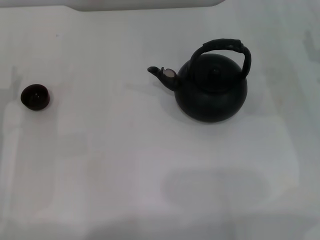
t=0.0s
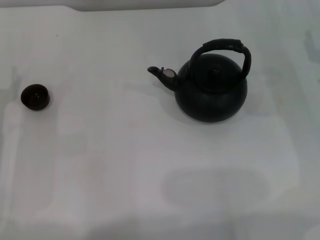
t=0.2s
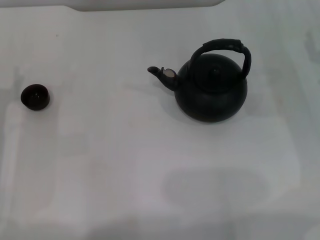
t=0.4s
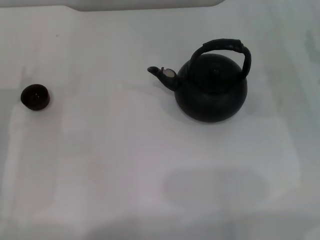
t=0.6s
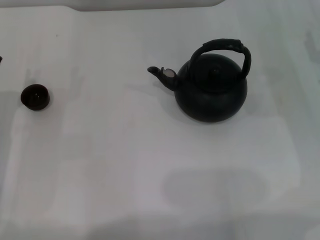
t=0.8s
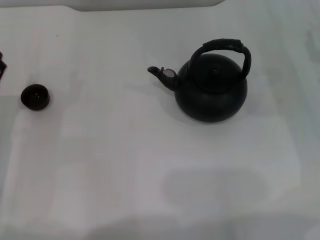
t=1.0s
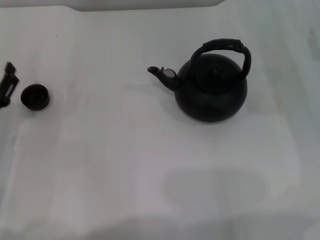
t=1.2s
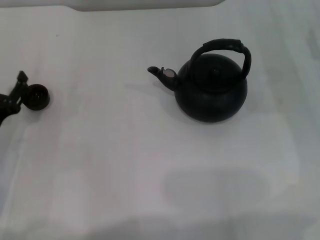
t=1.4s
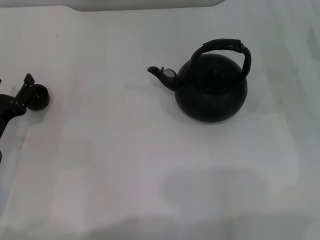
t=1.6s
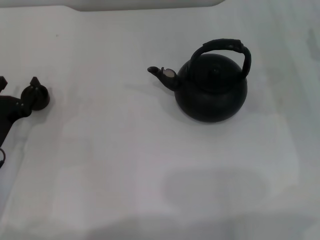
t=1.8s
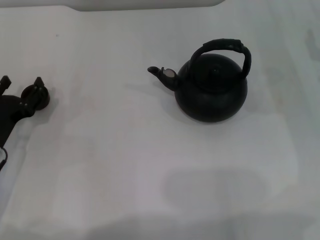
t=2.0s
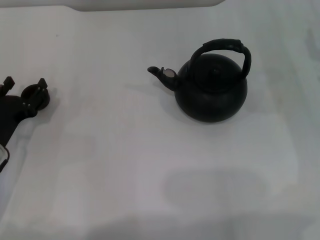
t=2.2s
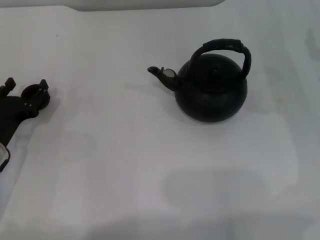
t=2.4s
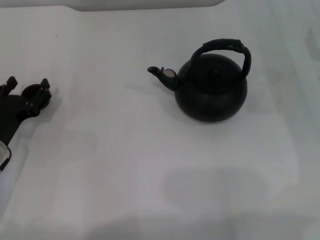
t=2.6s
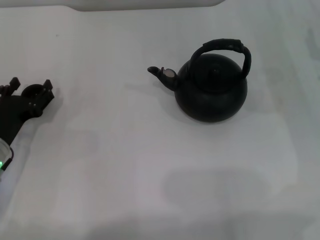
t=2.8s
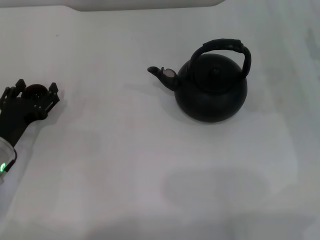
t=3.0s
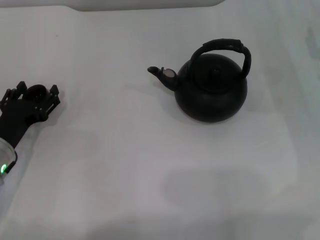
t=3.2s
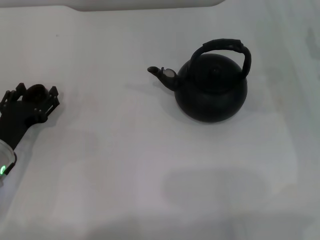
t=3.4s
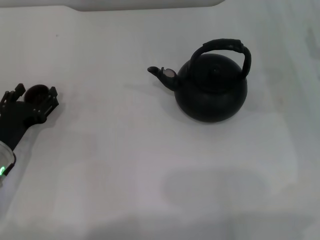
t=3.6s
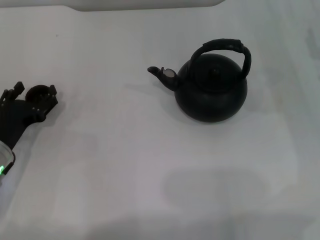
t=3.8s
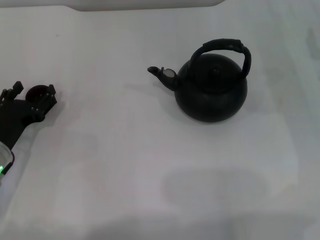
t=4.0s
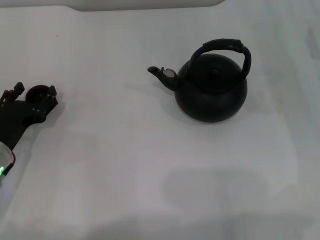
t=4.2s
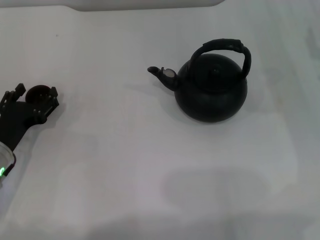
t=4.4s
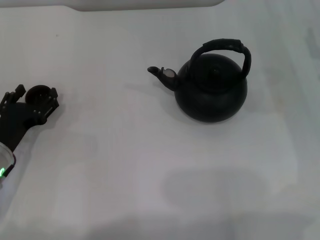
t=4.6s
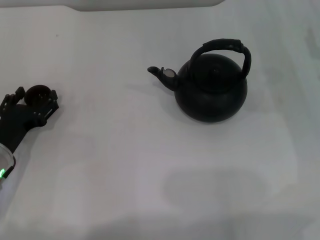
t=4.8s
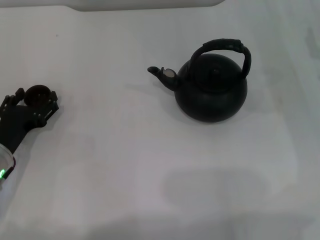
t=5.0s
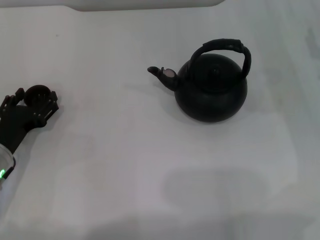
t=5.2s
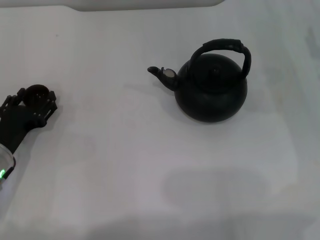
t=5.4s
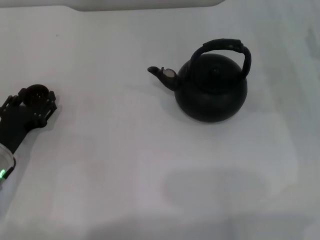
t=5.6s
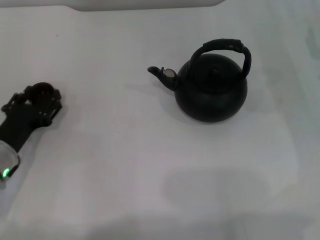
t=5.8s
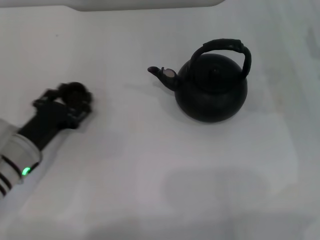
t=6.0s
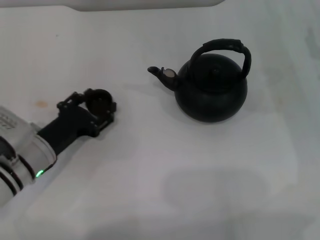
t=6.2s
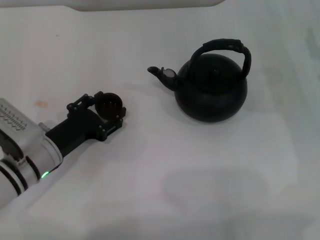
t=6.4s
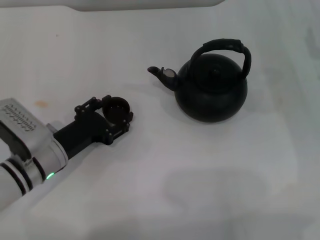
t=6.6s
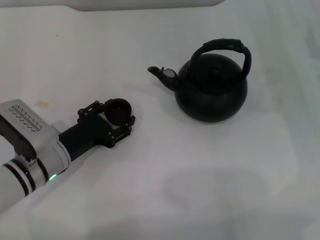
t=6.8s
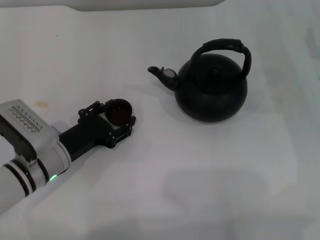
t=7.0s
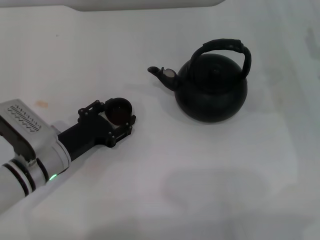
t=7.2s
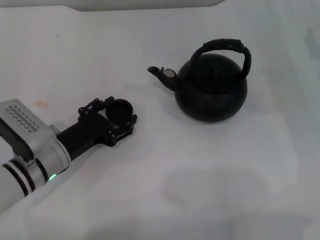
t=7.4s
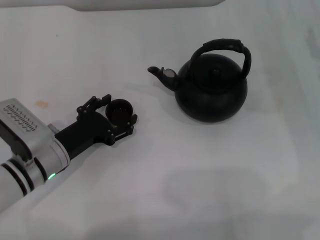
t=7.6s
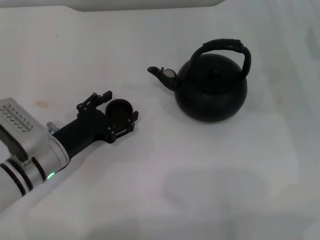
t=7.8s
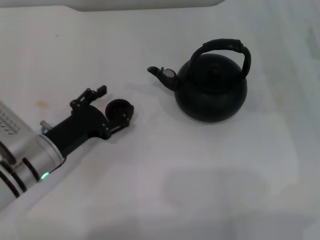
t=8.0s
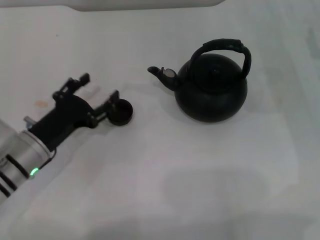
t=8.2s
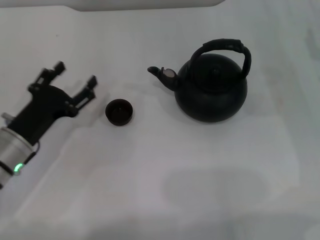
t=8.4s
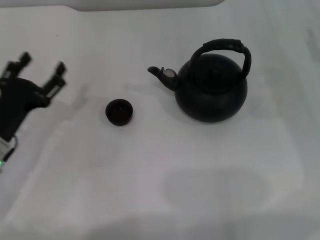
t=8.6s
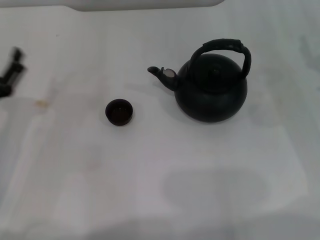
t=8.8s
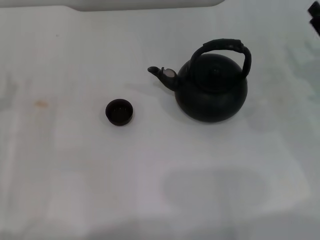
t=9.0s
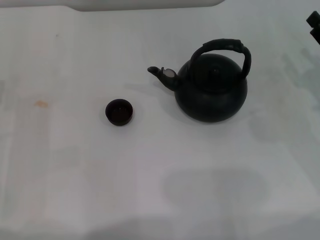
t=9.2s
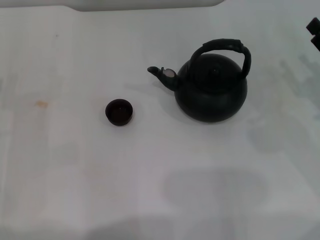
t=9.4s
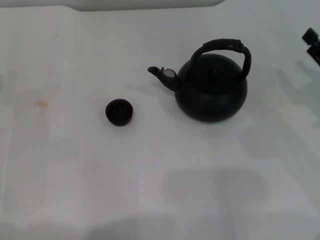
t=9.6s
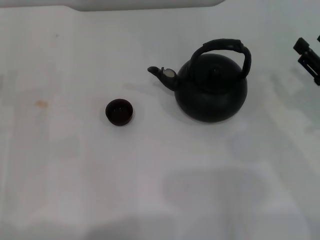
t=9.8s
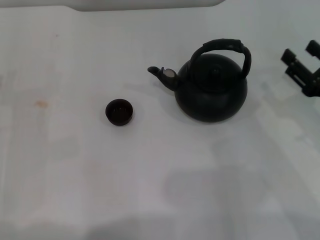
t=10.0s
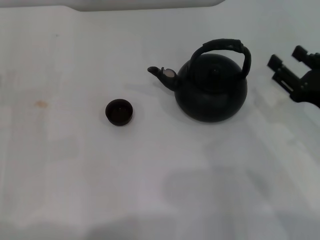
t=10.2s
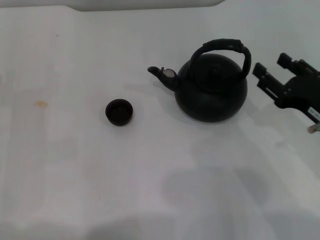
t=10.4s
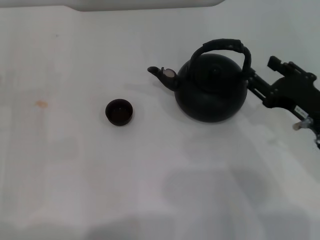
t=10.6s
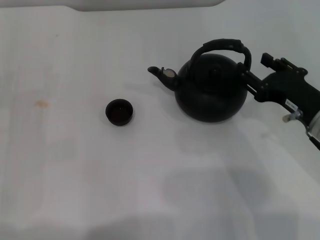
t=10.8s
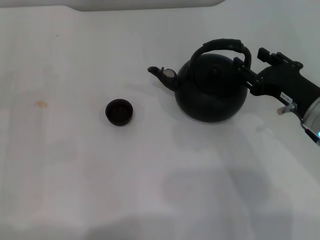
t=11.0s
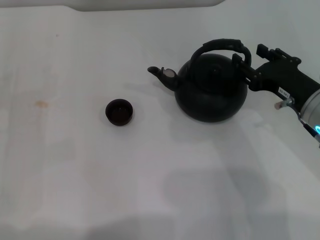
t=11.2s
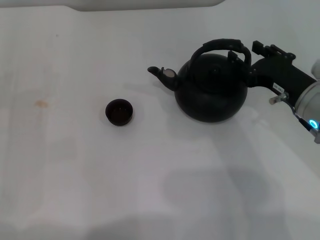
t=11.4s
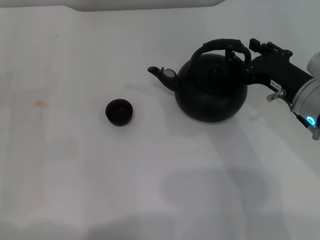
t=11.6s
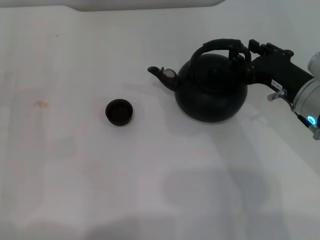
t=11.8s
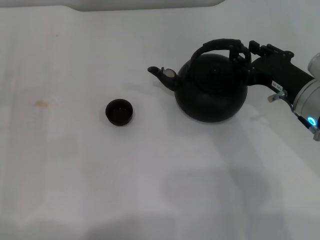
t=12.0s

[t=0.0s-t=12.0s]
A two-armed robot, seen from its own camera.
Task of the whole recording: Grasp the handle of the teapot with one hand and pour tea into the teacup.
Step, t=0.0s to t=5.6s: Pick up the teacup with the left gripper.
Step, t=6.0s to t=8.2s: Place the teacup in the center of view with the left gripper.
t=0.0s to t=1.6s: The grippers make only small movements.
t=1.6s to t=3.0s: There are only small adjustments of the grippers.
t=3.0s to t=4.4s: Both grippers stay about where they are.
t=4.4s to t=6.0s: The left gripper closes its fingers.
t=6.0s to t=7.6s: There are only small adjustments of the grippers.
t=7.6s to t=9.0s: The left gripper shifts some 10 cm to the left, and opens its fingers.
t=9.0s to t=10.4s: The right gripper is displaced backward and to the left by about 10 cm.
t=10.4s to t=12.0s: The right gripper travels forward by about 5 cm.

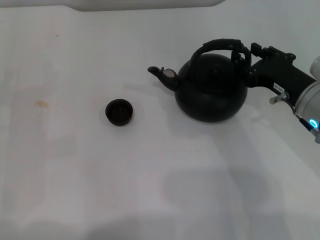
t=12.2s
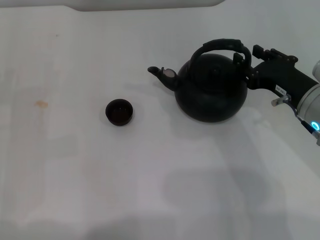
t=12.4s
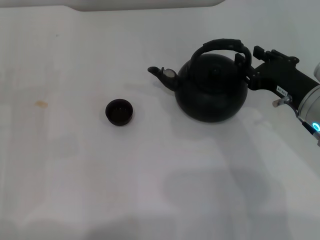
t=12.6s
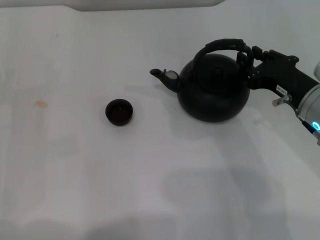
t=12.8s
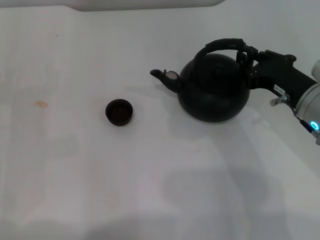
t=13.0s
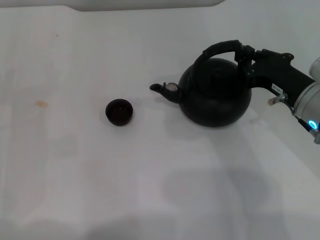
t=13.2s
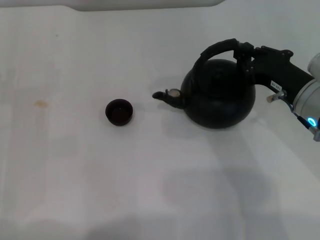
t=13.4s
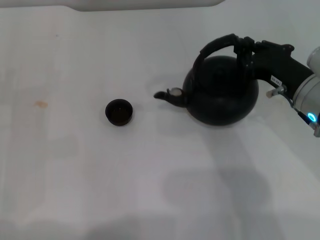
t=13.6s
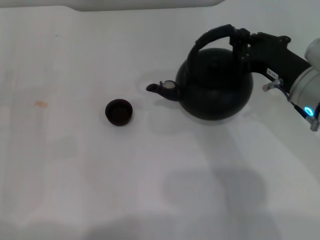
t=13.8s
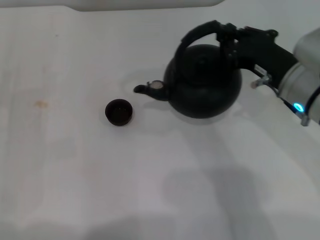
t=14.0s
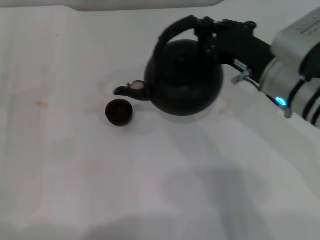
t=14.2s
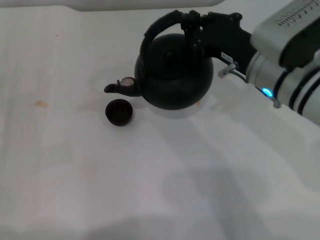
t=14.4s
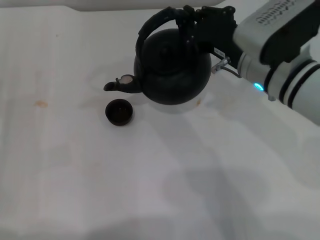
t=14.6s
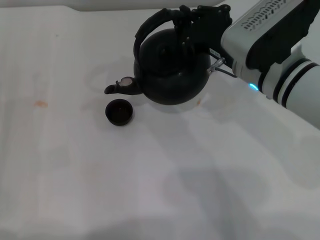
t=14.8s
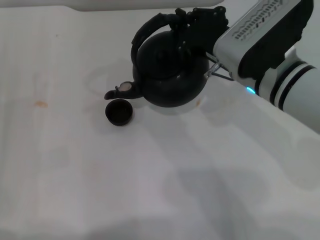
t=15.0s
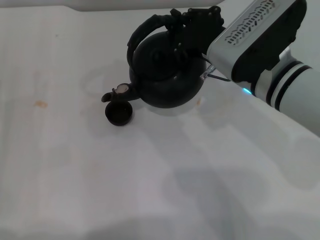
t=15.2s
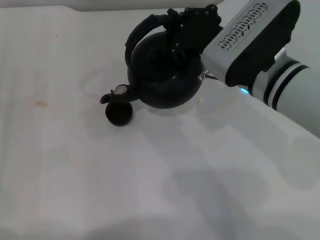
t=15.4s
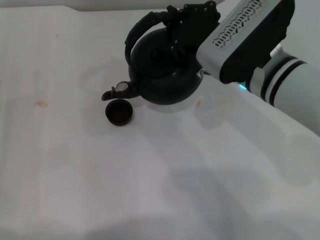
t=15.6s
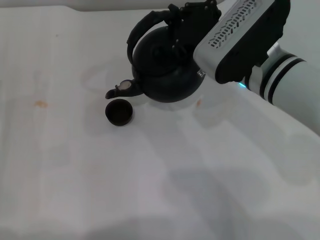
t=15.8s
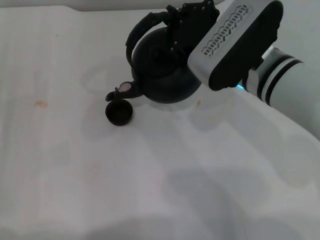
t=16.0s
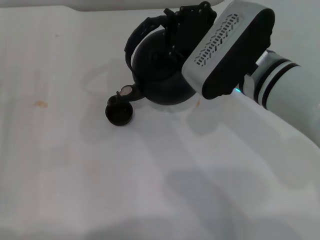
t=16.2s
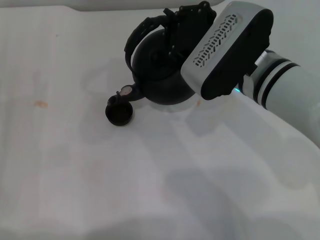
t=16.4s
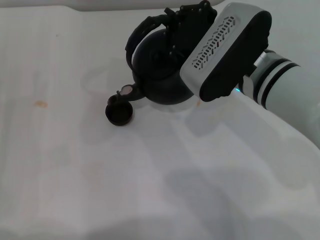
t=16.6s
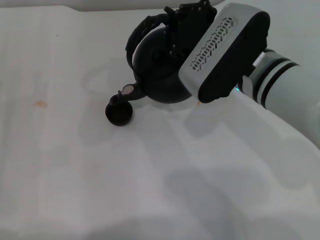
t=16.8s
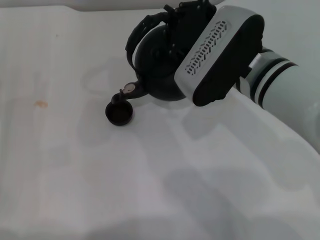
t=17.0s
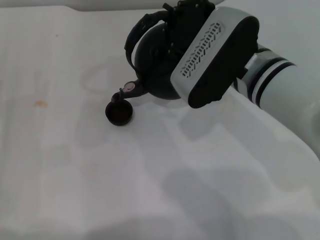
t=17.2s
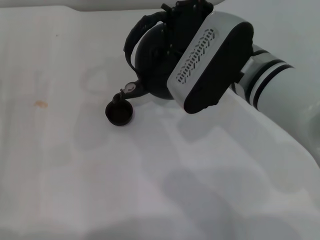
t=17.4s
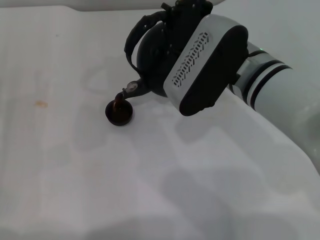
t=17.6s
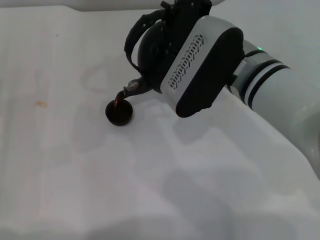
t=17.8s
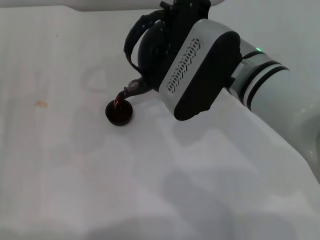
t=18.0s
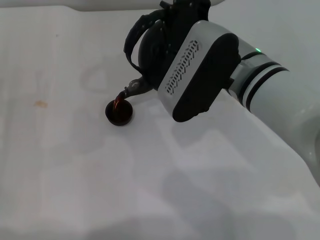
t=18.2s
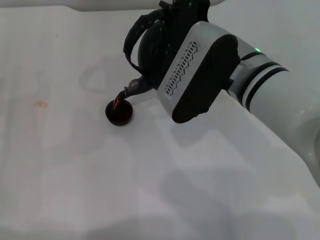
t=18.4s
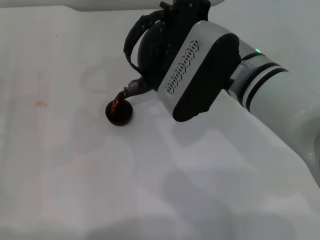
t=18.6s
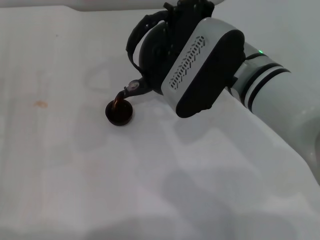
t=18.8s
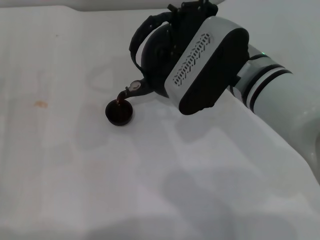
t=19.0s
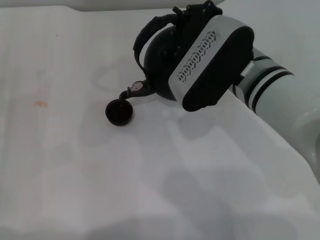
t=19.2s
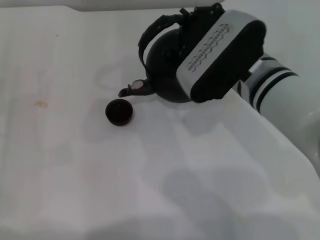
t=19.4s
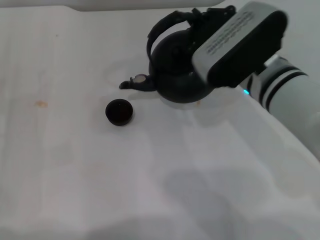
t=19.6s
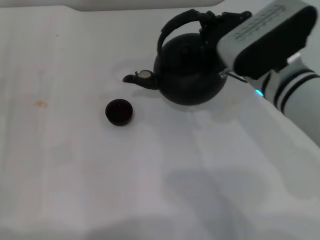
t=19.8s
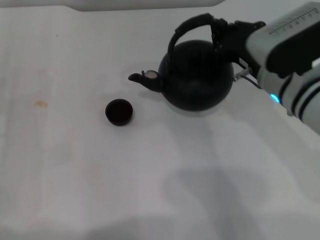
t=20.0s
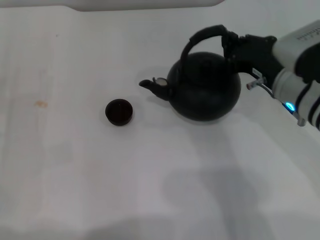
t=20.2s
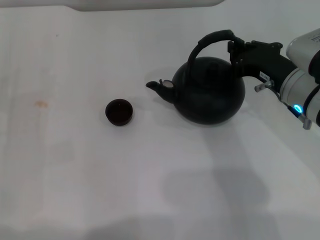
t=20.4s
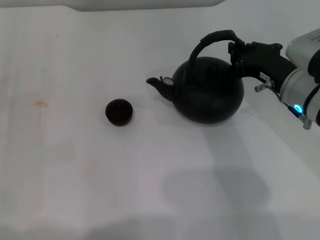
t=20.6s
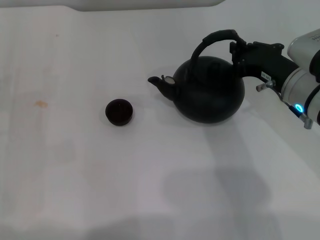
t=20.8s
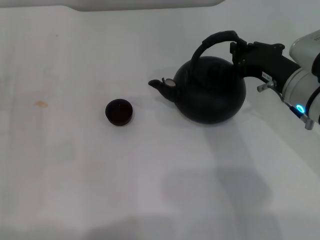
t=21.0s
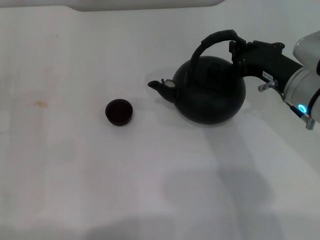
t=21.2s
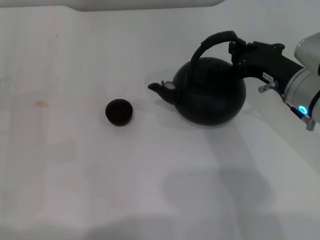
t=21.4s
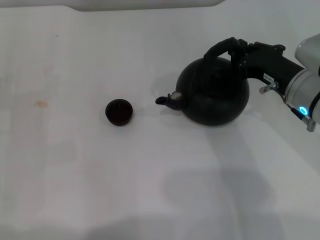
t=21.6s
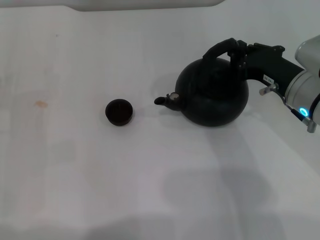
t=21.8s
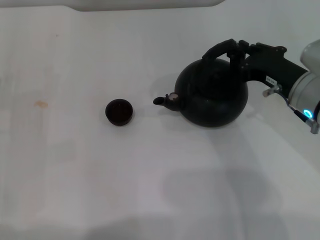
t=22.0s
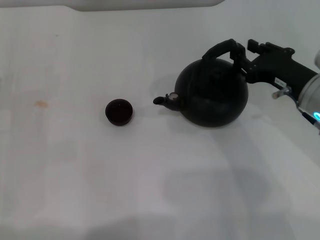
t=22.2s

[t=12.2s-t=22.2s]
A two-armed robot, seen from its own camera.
Task of the whole recording: Grasp the handle of the teapot with one hand and pour tea into the teacup.
Step, t=14.0s to t=19.4s: Pour tea into the teacup with the right gripper.
t=12.2s to t=13.6s: The right gripper closes up.
t=13.6s to t=15.0s: The right gripper shifts approximately 10 cm to the left.
t=15.0s to t=16.4s: The grippers stay close to where they were, moving slightly.
t=16.4s to t=19.4s: There are only small adjustments of the grippers.
t=19.4s to t=20.8s: The right gripper moves to the right, roughly 10 cm.
t=20.8s to t=22.2s: The grippers move only a little.
